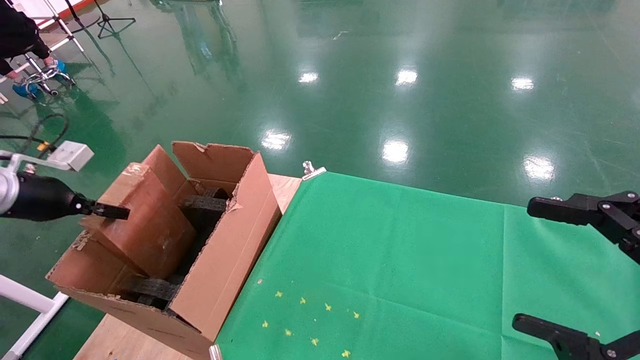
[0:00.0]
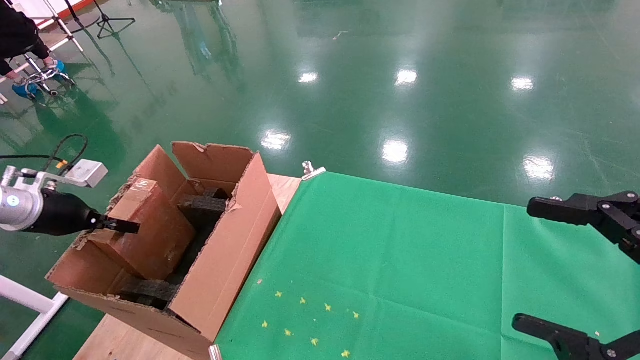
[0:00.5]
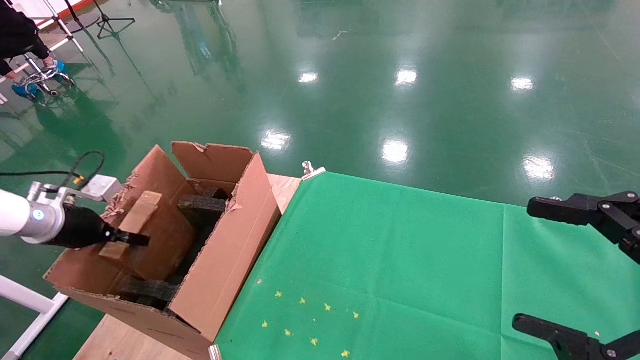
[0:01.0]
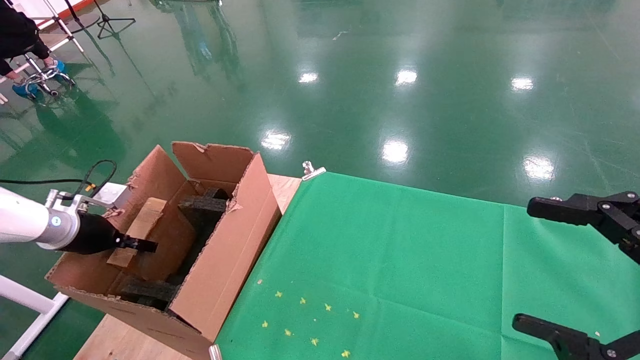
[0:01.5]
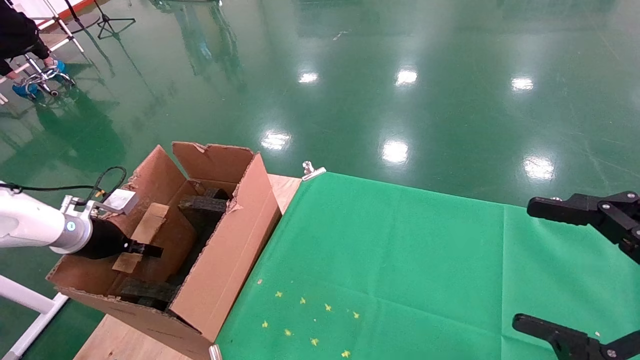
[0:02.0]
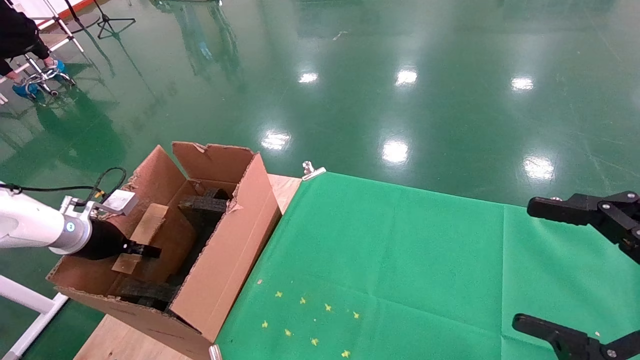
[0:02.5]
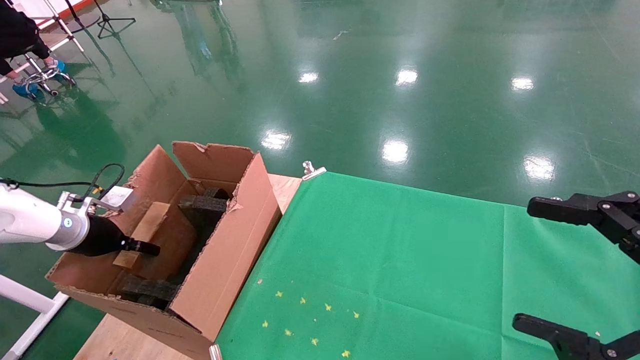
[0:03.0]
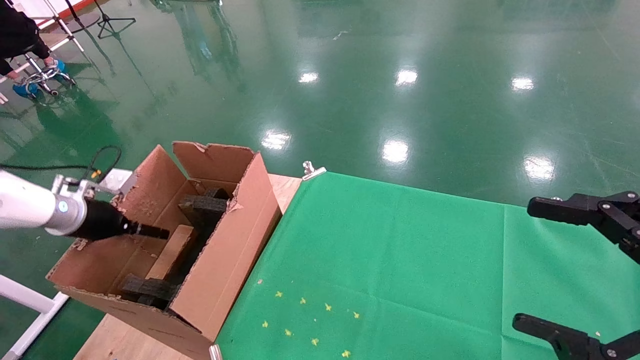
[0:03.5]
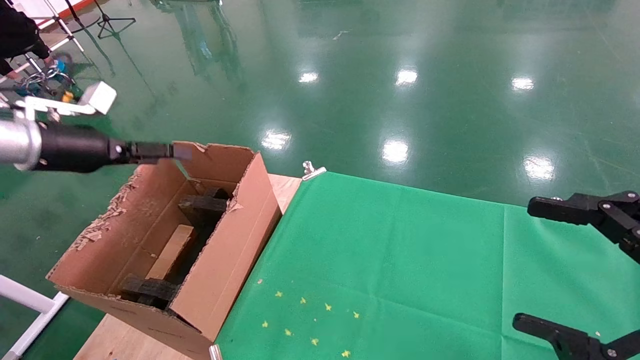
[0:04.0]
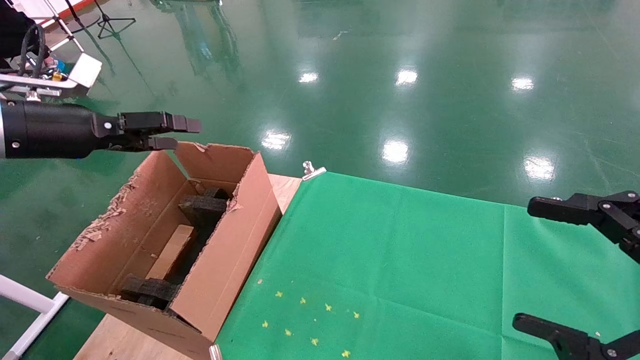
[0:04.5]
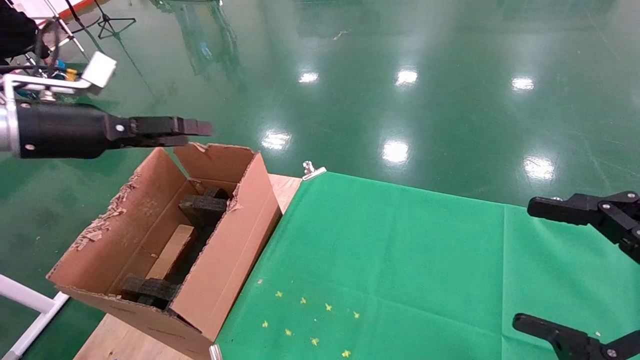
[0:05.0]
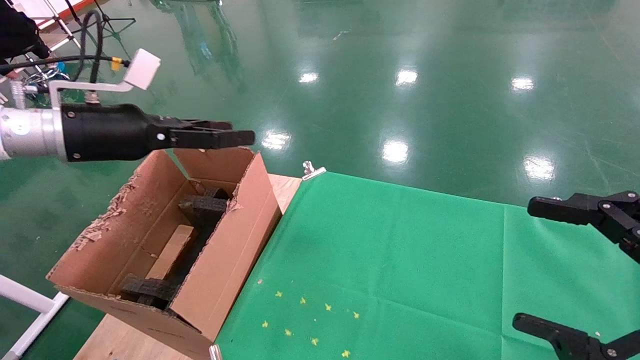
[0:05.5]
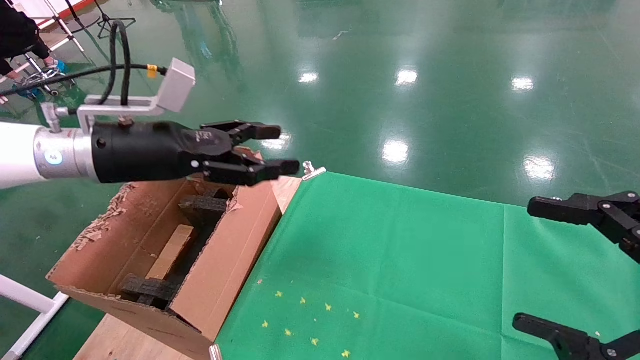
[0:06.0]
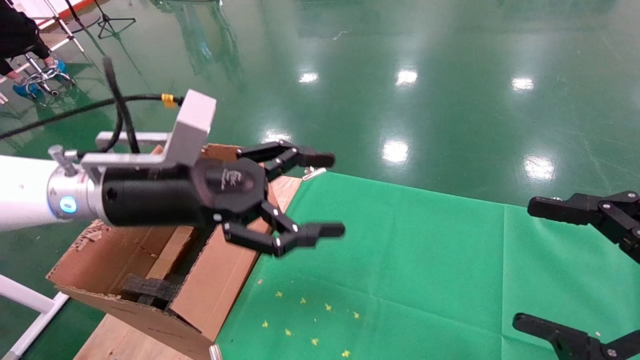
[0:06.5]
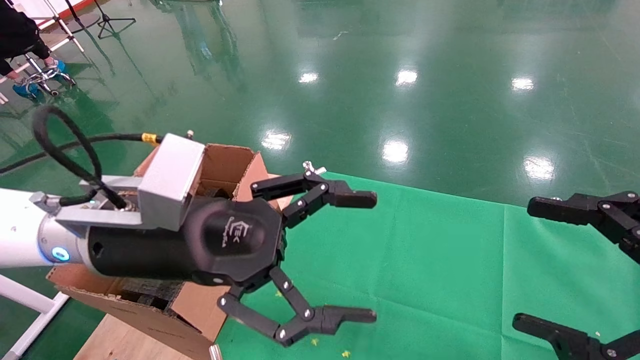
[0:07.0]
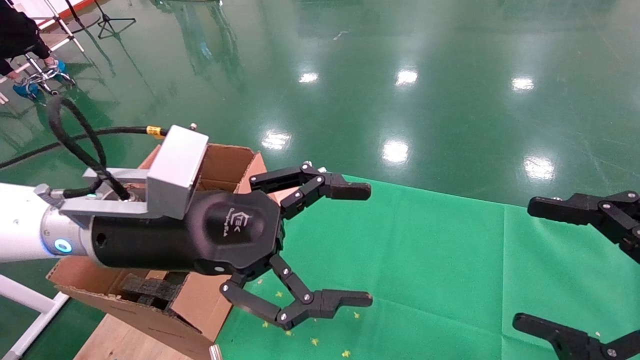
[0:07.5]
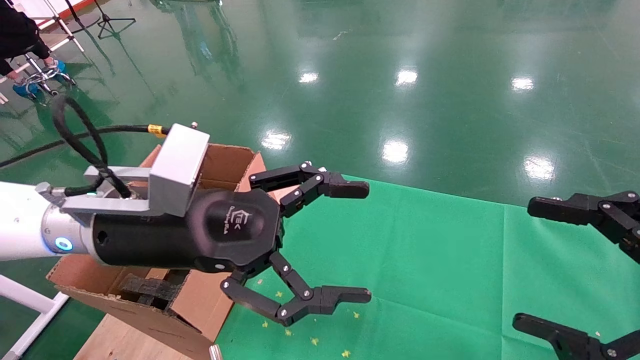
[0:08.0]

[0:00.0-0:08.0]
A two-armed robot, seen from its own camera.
Task of the whole recording: using a robotic arm to pick up a cardboard box and palace it the carton.
Step, 0:00.0 to 0:03.5: Place the mouse and the power cord paper box into the container.
0:00.0 to 0:02.0: The left gripper travels downward and forward by some 10 cm.
0:02.0 to 0:04.0: The left gripper is displaced upward by about 15 cm, and opens its fingers.
0:04.0 to 0:06.0: The left gripper moves to the right, some 15 cm.
0:06.0 to 0:08.0: The left gripper travels to the right and backward by approximately 10 cm.
